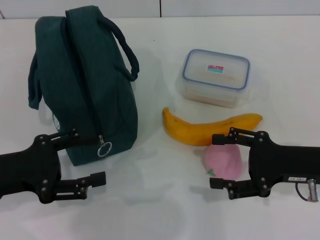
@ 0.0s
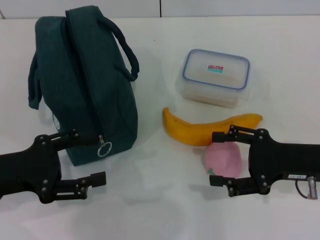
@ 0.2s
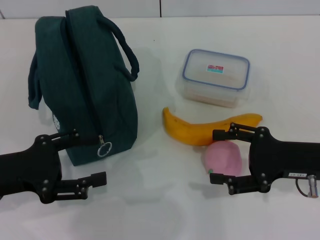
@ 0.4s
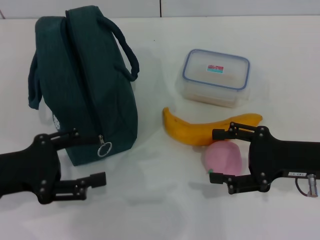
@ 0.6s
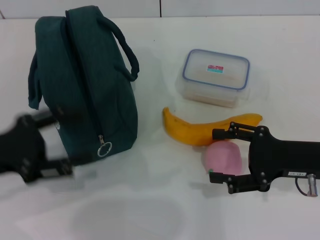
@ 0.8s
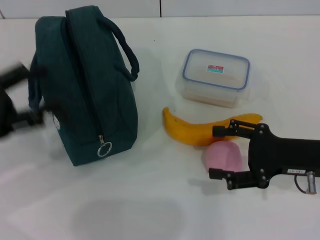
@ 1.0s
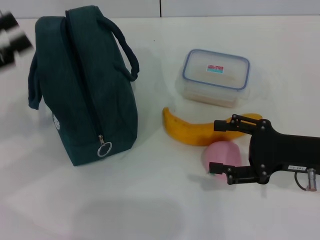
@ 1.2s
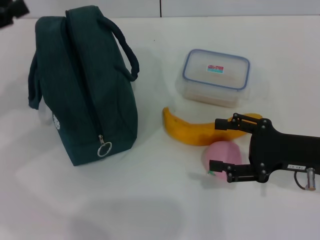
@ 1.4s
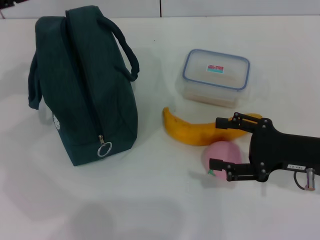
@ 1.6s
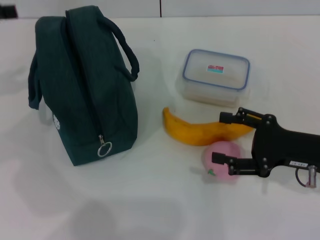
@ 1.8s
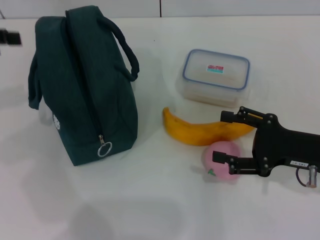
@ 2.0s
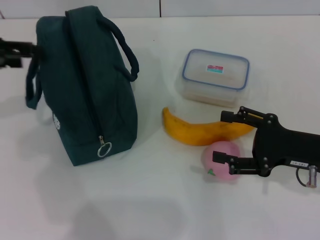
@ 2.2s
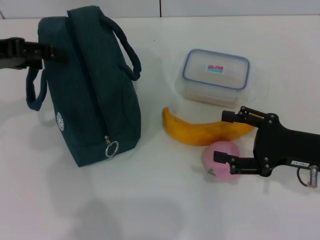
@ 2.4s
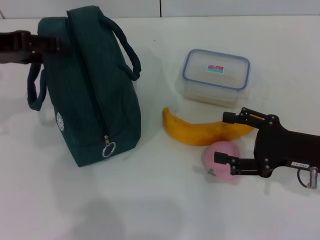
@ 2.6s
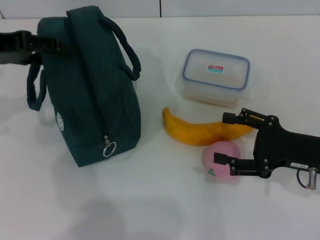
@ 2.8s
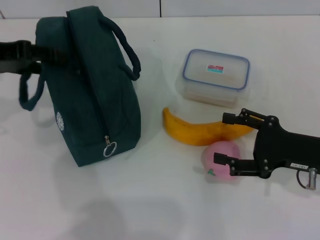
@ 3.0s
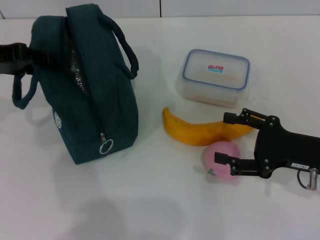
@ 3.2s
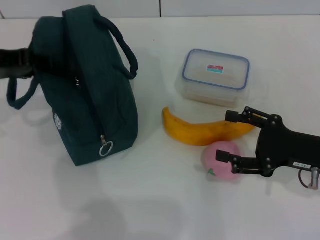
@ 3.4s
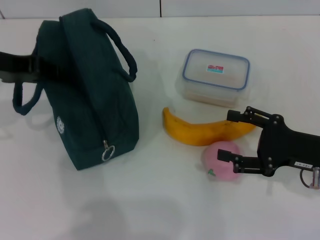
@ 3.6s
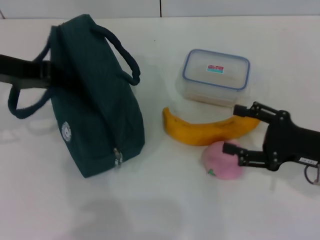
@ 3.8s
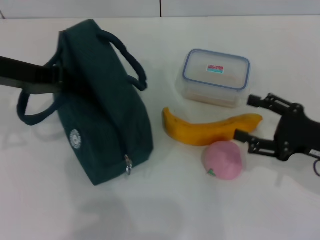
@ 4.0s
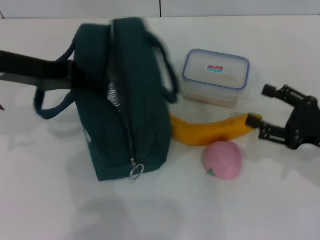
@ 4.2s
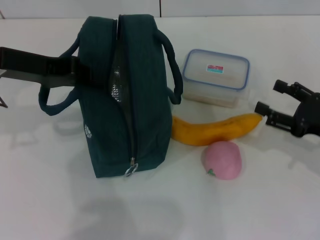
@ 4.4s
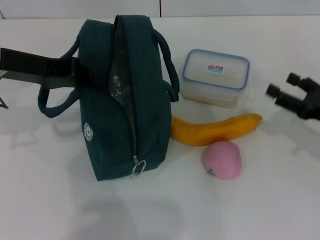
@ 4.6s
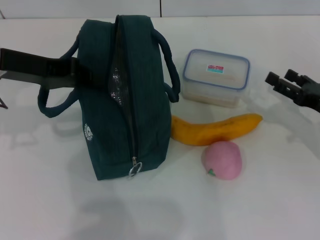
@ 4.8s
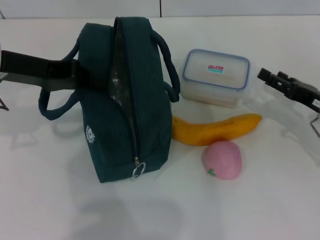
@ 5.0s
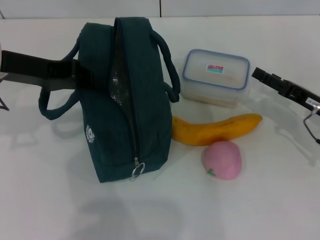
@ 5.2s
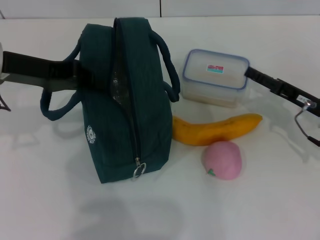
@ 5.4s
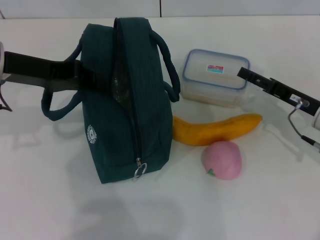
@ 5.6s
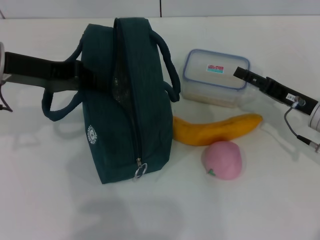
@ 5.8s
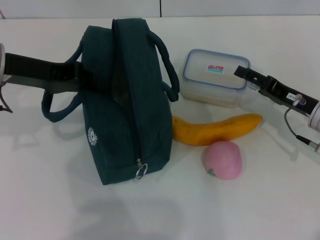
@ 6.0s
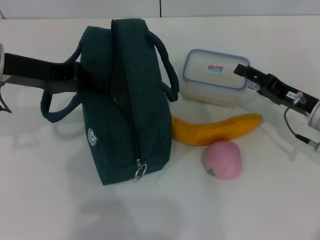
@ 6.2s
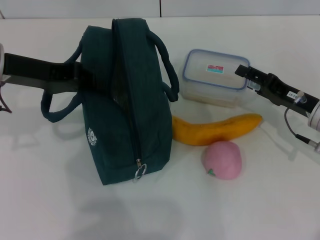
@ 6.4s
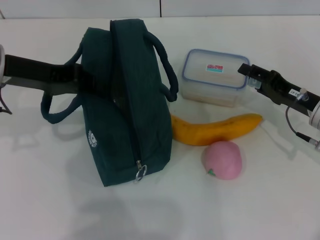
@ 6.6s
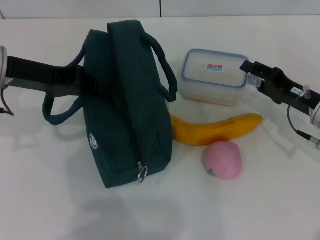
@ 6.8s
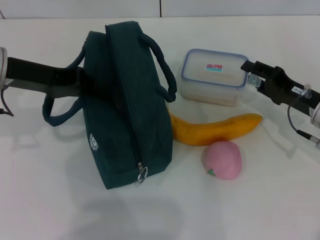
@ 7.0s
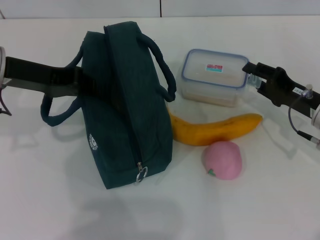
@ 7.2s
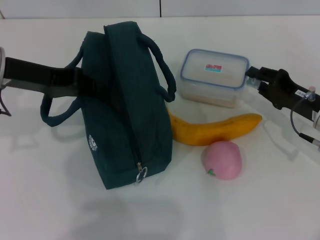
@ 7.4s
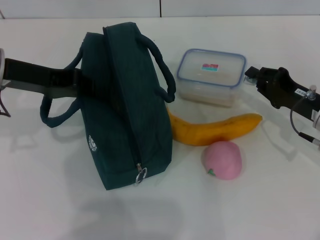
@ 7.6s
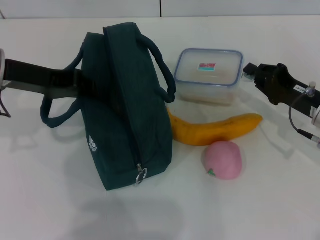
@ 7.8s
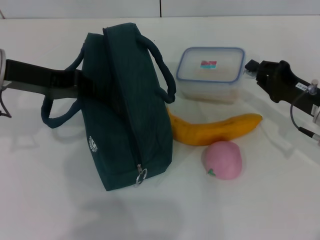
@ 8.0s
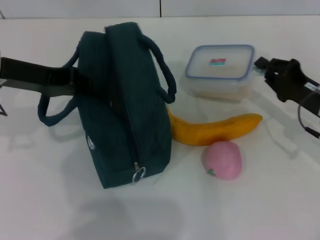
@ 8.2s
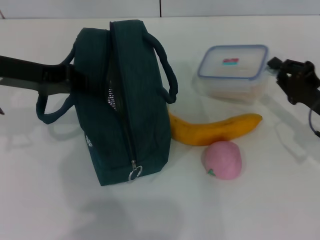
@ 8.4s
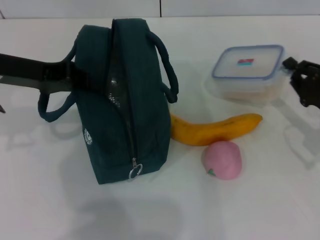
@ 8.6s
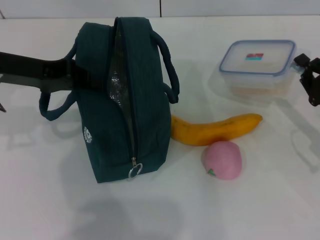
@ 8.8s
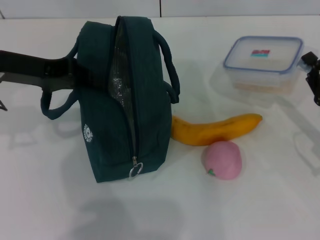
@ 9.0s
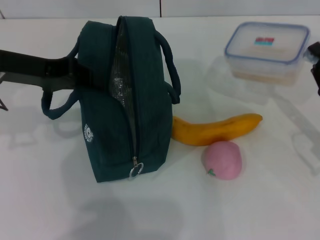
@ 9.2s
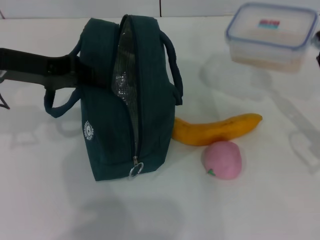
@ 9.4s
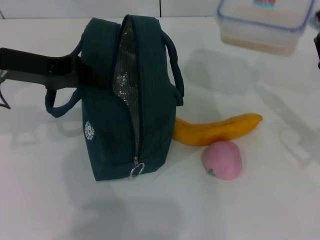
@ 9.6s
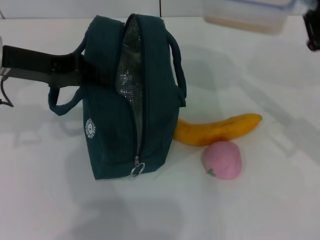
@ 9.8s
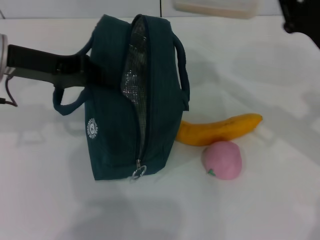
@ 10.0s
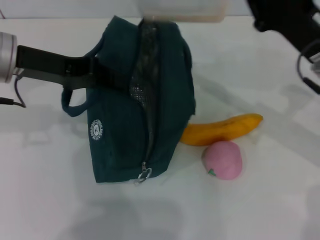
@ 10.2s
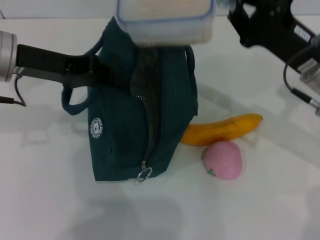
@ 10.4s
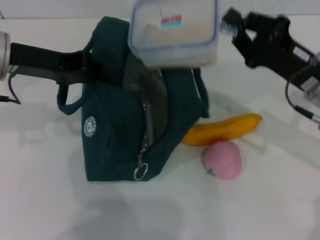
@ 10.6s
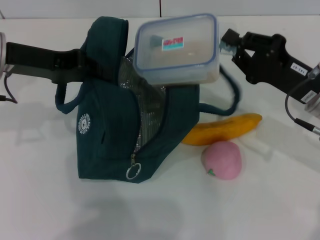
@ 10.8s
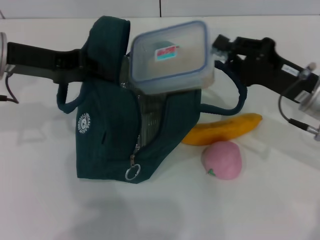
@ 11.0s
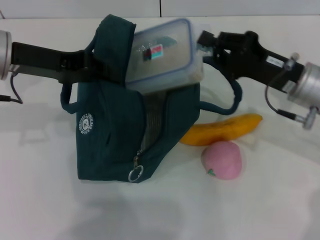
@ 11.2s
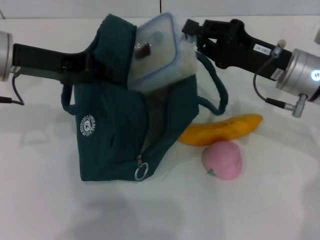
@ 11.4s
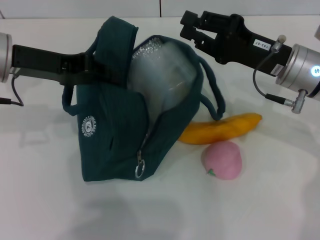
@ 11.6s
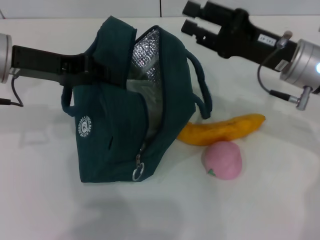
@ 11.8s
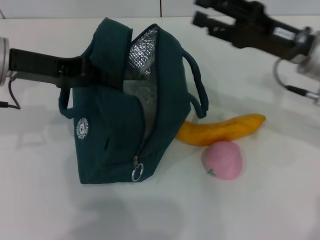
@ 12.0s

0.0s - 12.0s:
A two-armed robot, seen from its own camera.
Step, 0.0s - 4.2s: Hold the lunch bag with your left hand.
Step, 4.4s - 8.2s: Pick up the lunch box with your right hand.
0.0s - 1.6s: The left gripper heads forward, upward and to the left, covering about 15 cm.
1.6s - 3.0s: The left gripper heads to the right, covering some 5 cm.
3.0s - 4.4s: The left gripper shifts roughly 5 cm to the right, and closes.
4.4s - 6.0s: The right gripper goes approximately 5 cm forward.
6.0s - 7.6s: The right gripper closes up.
7.6s - 9.0s: The right gripper changes place by approximately 5 cm.
9.0s - 10.4s: The right gripper moves to the left, upward and forward, approximately 15 cm.
10.4s - 12.0s: The right gripper opens its fingers.

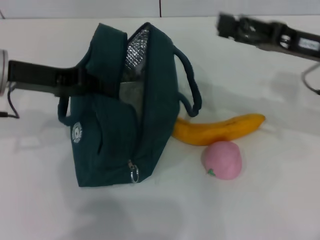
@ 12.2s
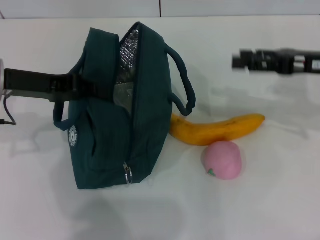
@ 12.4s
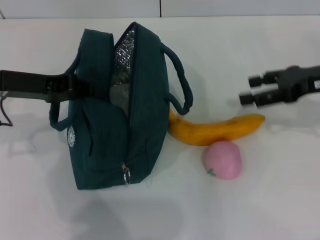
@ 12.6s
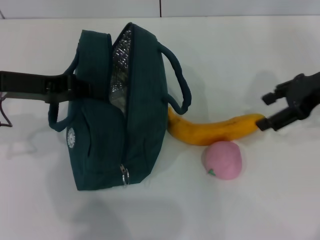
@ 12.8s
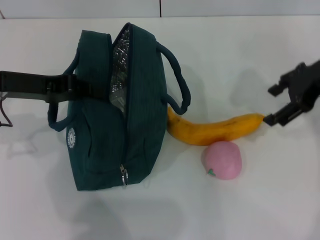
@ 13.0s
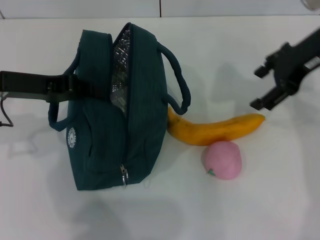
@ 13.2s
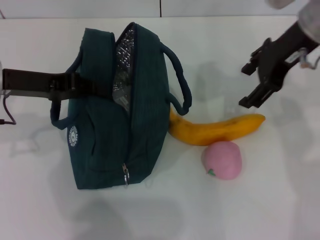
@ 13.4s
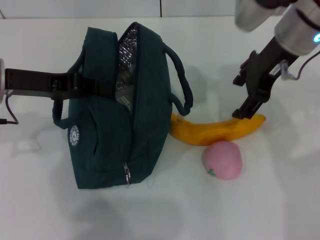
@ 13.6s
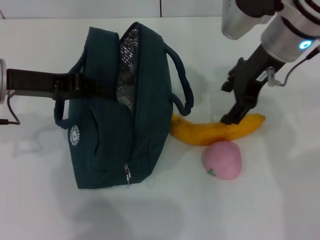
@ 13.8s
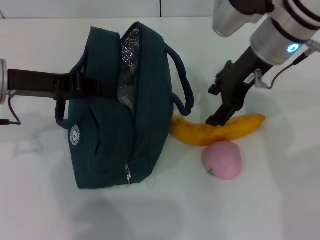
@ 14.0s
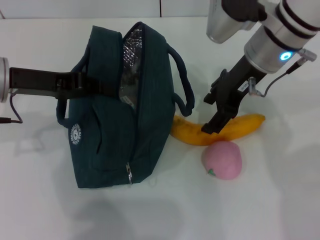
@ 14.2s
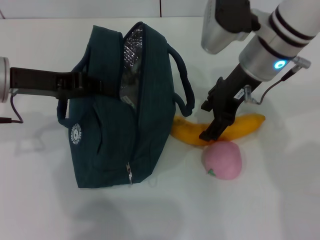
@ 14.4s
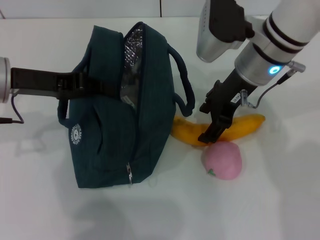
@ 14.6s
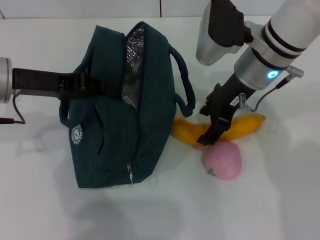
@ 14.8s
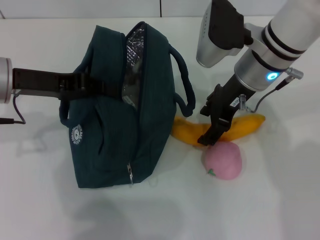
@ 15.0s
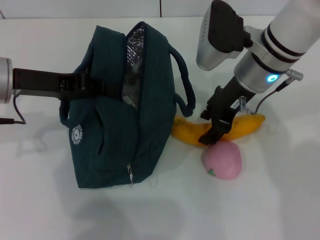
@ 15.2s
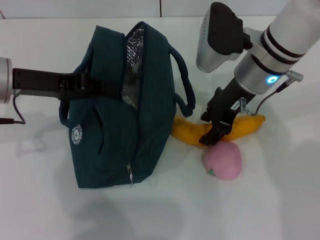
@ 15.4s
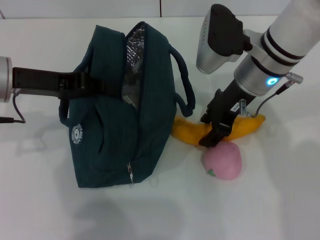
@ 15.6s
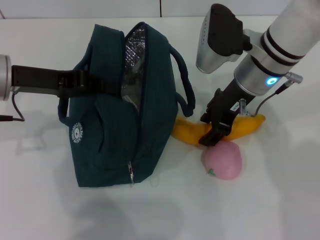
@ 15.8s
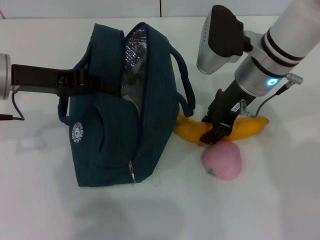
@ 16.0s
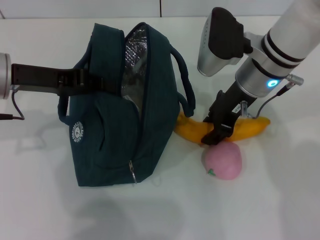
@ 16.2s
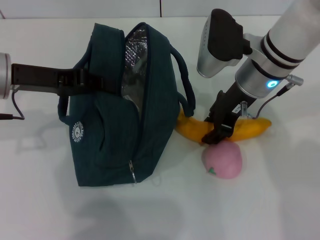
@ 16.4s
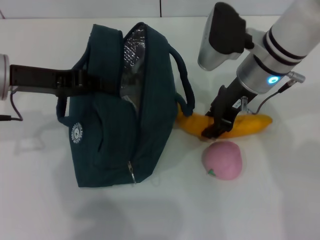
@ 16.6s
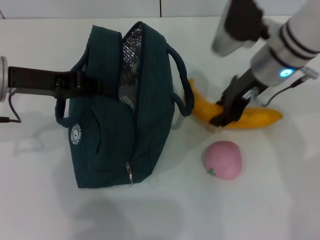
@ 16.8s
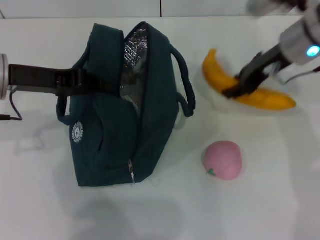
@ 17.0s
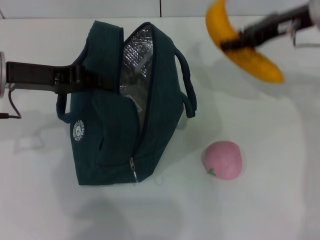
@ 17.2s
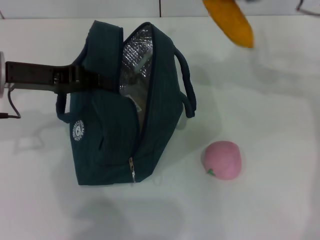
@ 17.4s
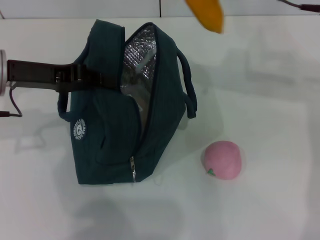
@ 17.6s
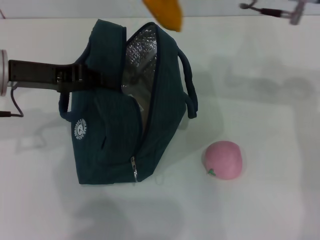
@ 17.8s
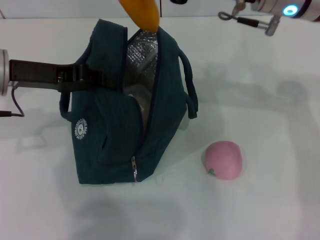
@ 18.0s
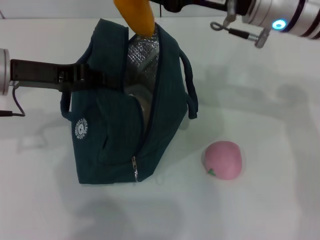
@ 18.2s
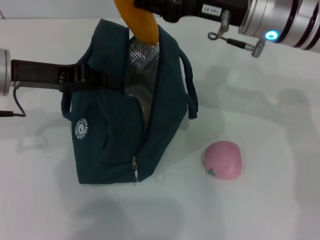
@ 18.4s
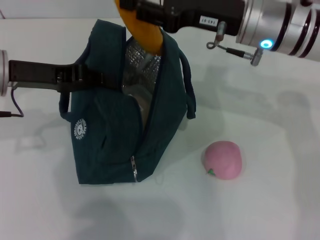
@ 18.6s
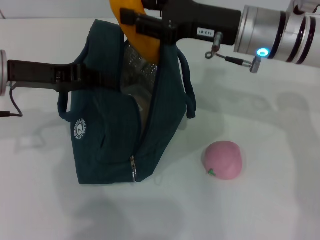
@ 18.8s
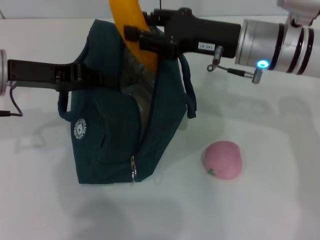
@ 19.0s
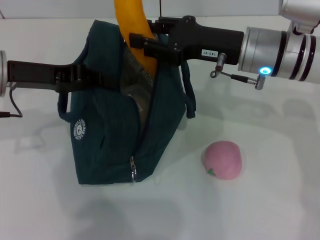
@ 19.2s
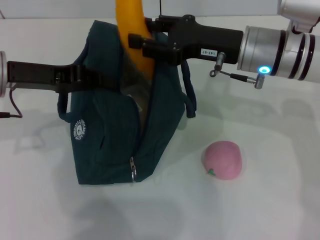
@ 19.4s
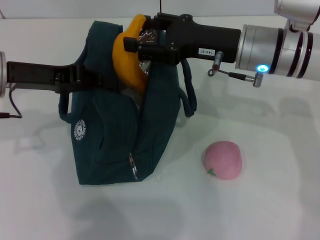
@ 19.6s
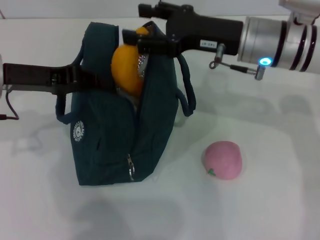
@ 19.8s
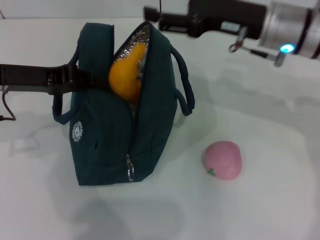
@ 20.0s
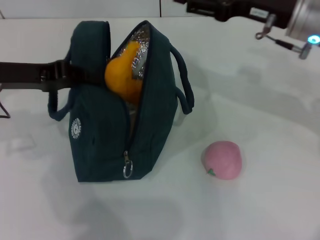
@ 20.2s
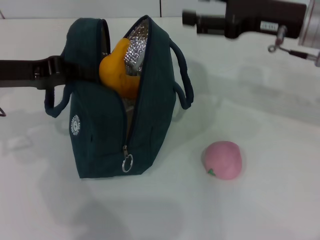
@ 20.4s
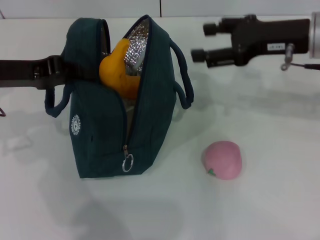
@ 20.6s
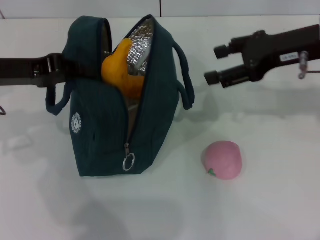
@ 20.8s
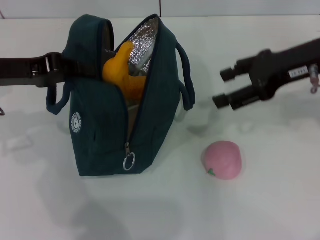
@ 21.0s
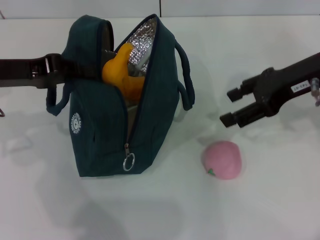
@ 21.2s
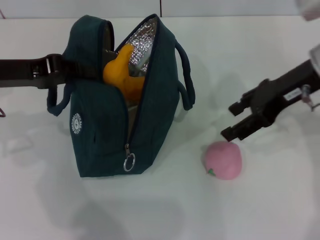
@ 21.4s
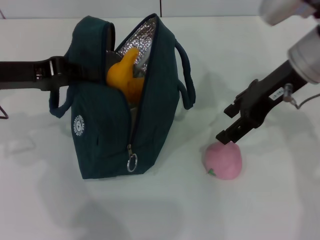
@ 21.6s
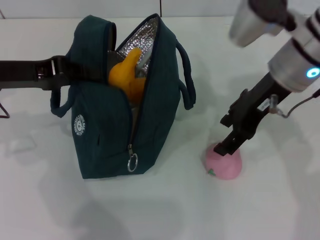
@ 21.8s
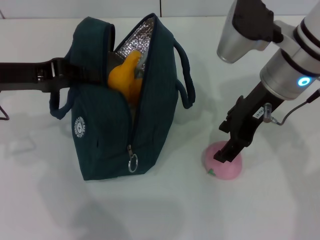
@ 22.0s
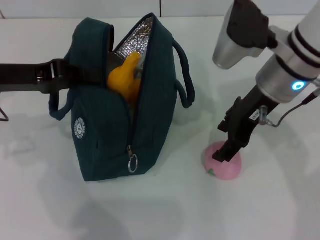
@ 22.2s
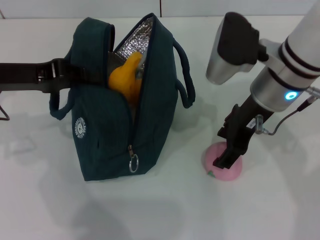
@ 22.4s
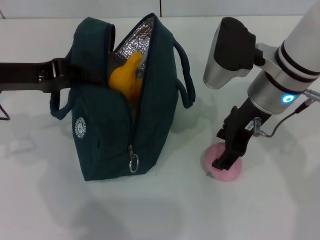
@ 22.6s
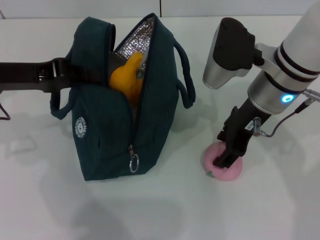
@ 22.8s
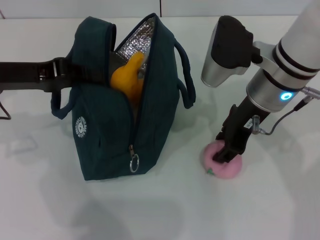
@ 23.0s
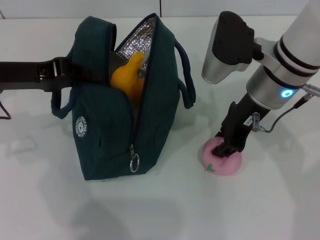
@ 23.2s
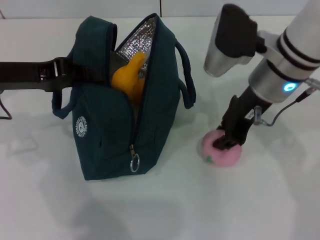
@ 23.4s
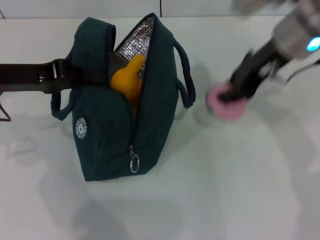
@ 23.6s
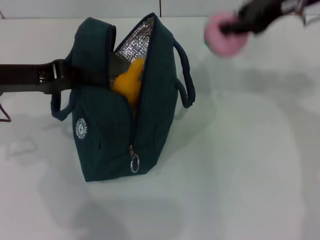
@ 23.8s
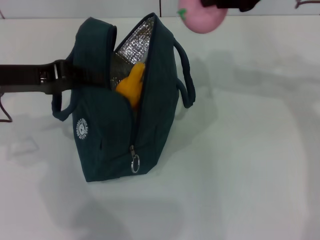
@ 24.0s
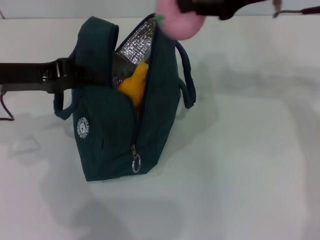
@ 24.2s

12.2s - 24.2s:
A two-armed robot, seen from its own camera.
Step, 12.2s - 16.0s: Take the banana with your right hand.
Step, 16.2s - 20.2s: Put the banana into the lunch bag with your right hand.
Step, 20.4s - 23.0s: Grab the peach with your right hand.
12.2s - 13.8s: The right gripper is displaced to the left and upward by about 10 cm.
13.8s - 15.2s: The right gripper shifts roughly 5 cm downward.
15.2s - 16.6s: The right gripper closes its fingers.
16.6s - 18.2s: The right gripper heads upward, covering roughly 5 cm.
18.2s - 19.8s: The right gripper shifts approximately 5 cm downward.
19.8s - 21.2s: The right gripper is displaced to the right by roughly 10 cm.
21.2s - 22.6s: The right gripper is displaced to the left by some 10 cm.
22.6s - 24.2s: The right gripper shifts approximately 10 cm upward and to the right, and closes its fingers.
